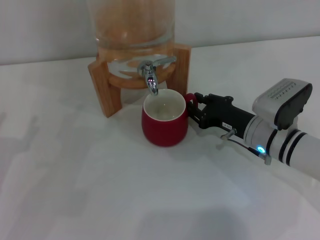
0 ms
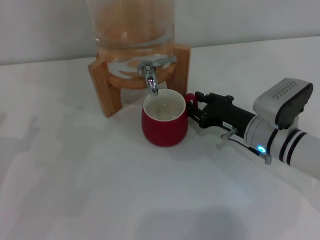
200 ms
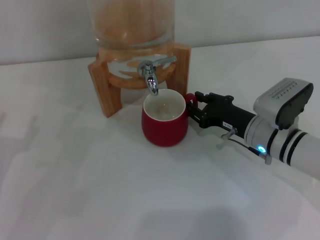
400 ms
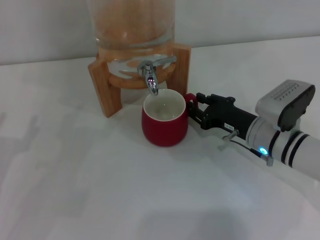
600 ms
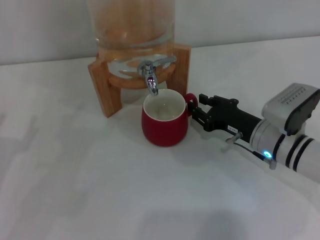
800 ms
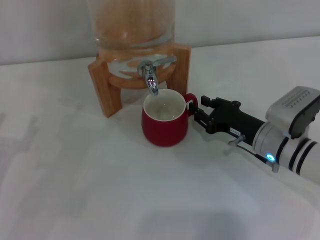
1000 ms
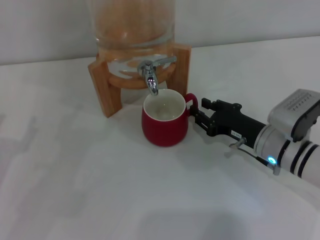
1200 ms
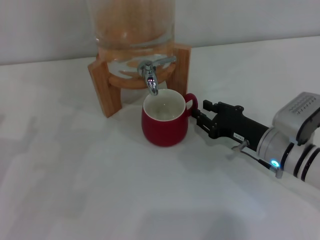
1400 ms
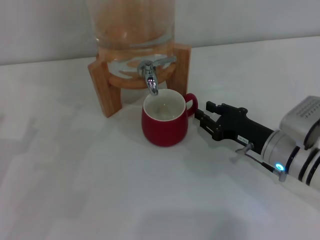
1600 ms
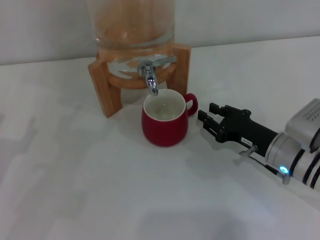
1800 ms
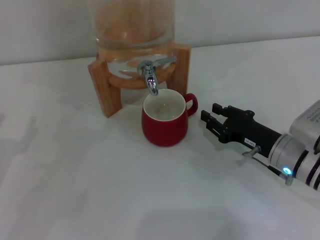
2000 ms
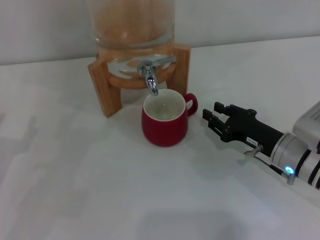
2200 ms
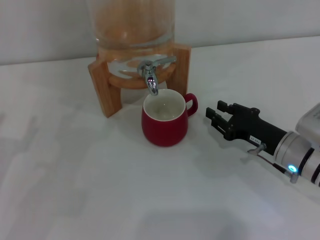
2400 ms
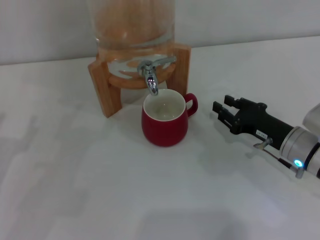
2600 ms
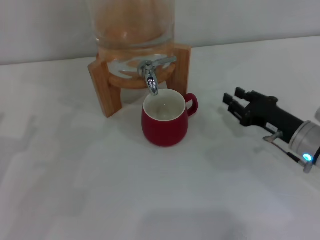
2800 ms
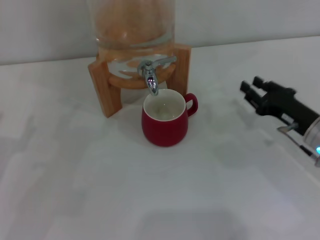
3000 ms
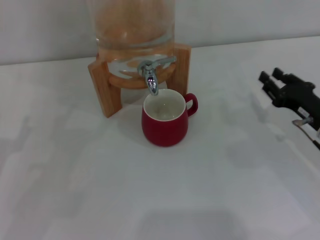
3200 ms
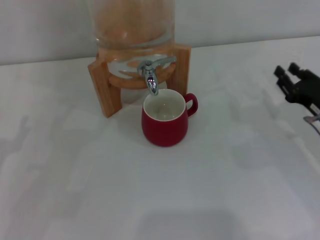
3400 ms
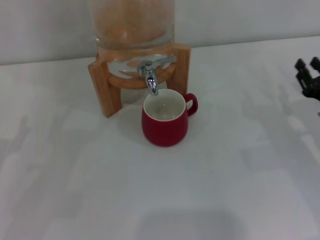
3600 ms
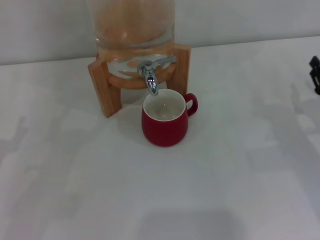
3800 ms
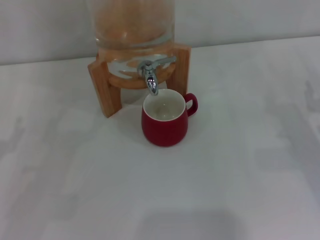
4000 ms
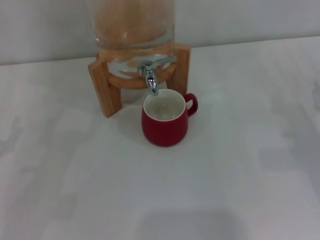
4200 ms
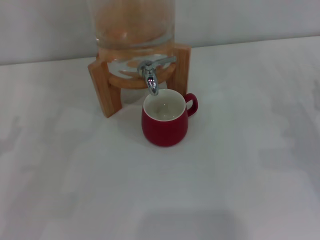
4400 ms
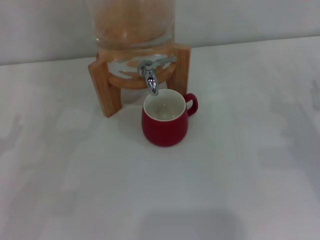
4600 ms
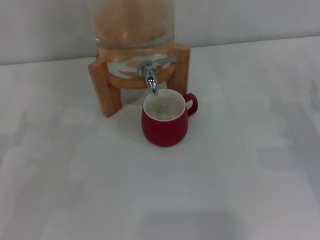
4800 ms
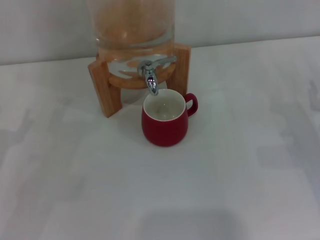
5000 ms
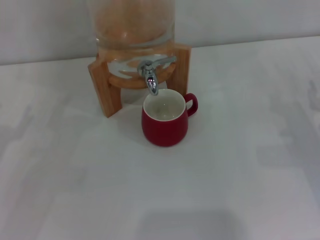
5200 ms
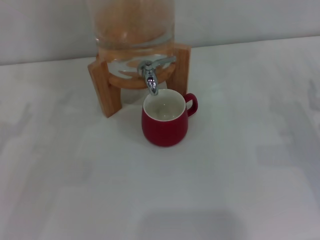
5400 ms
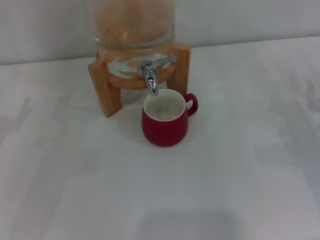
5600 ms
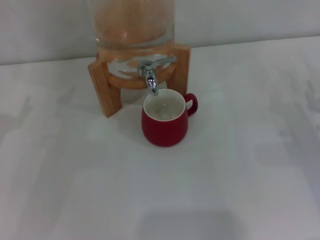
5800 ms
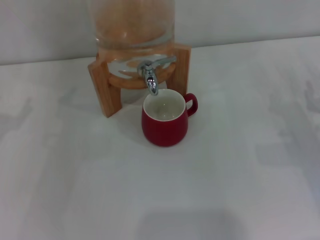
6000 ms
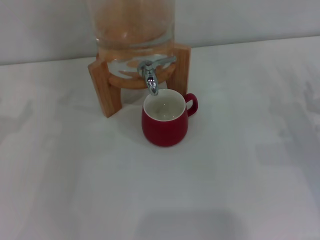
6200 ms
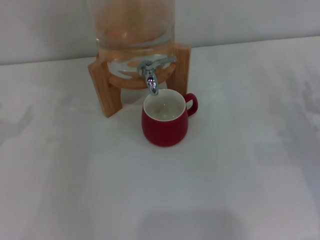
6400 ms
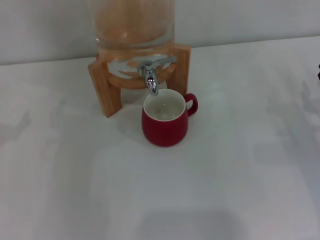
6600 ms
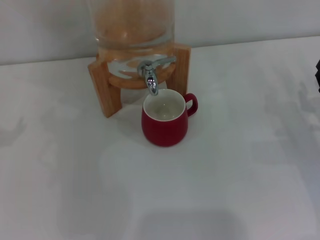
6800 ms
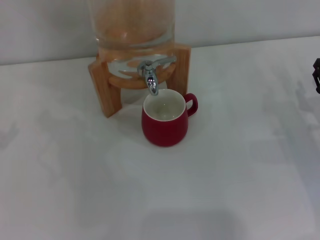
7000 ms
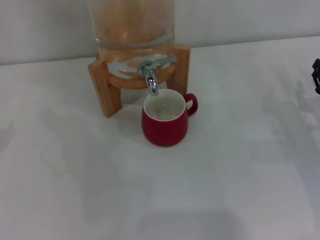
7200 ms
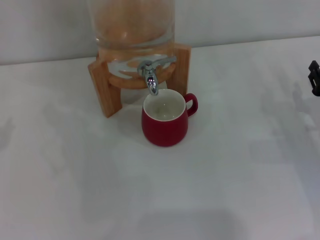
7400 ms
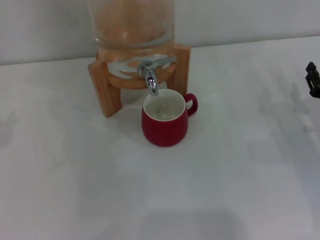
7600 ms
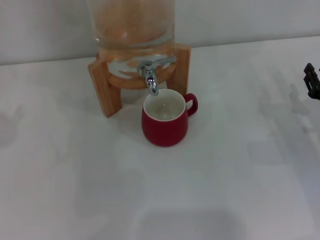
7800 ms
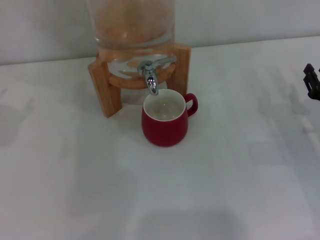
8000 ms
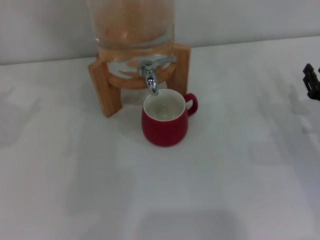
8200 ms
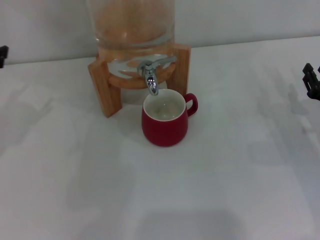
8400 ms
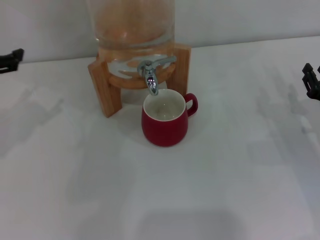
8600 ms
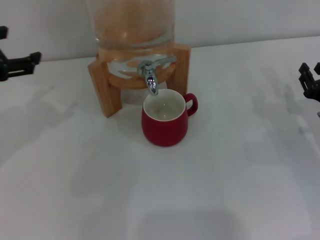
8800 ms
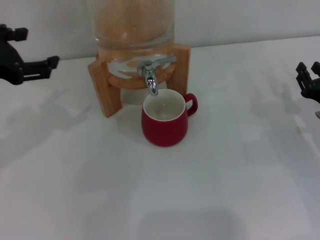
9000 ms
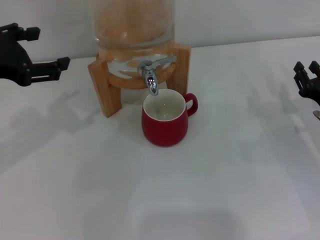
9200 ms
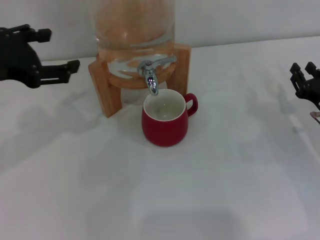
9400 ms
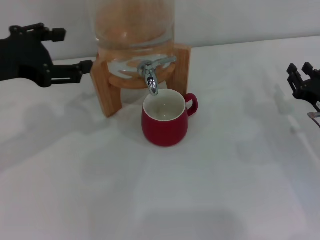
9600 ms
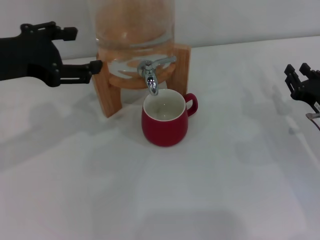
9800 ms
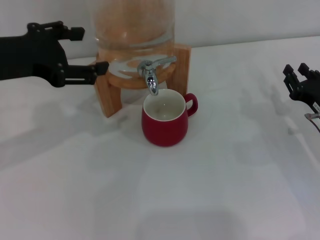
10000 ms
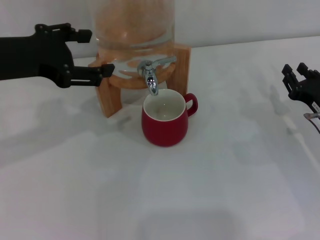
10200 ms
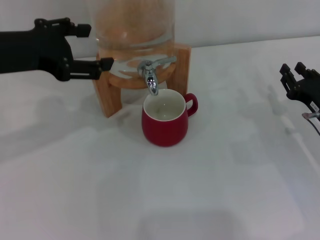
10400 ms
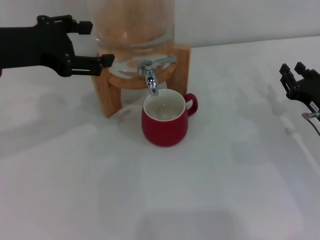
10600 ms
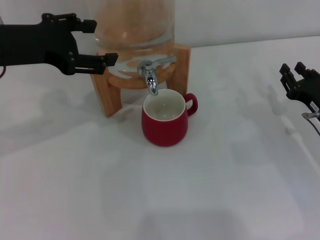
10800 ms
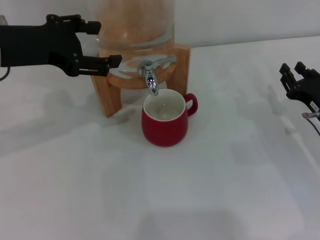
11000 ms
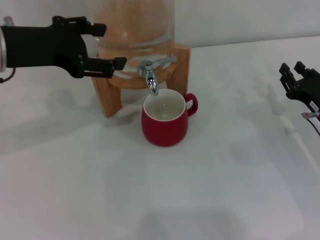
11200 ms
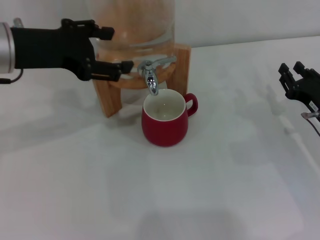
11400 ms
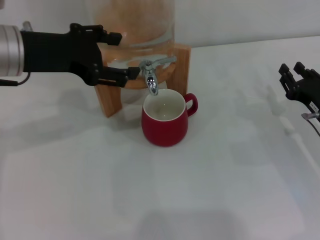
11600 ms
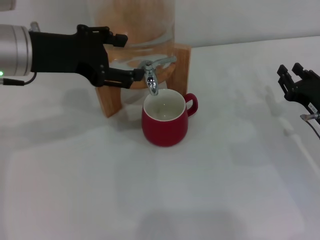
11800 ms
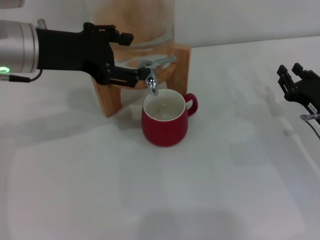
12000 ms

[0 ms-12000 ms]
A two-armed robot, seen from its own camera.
Task of the whole recording: the right gripper pick up the red cup and place it horizontally under the faucet, the left gripper turn on the faucet to fill the cup, and then turn off the faucet.
Step, 0 ms to 2200 ms: Move the cup beneath the water dispenser nozzle with the right gripper.
0 ms to 1600 ms: The grippers move only a little.
1600 ms to 3000 ms: The right gripper moves to the right, about 5 cm.
3000 ms to 4400 ms: The right gripper heads to the right, covering roughly 10 cm.
7600 ms to 9000 ms: The left gripper goes roughly 5 cm to the right.
9000 ms to 10400 ms: The grippers stay close to where they were, moving slightly.
10400 ms to 12000 ms: The left gripper moves roughly 5 cm.

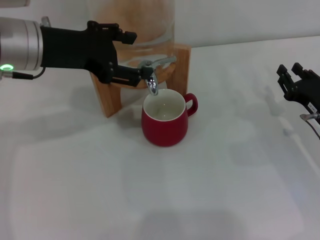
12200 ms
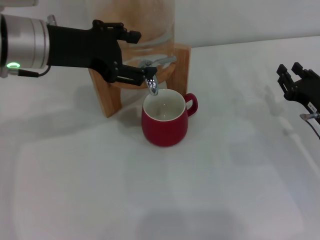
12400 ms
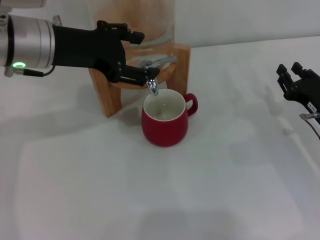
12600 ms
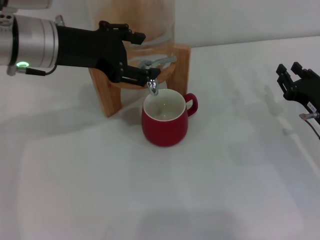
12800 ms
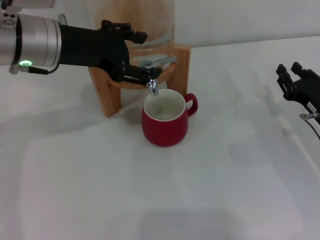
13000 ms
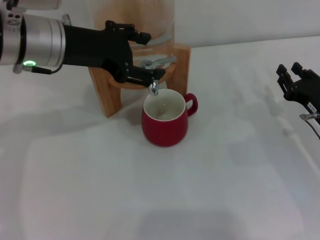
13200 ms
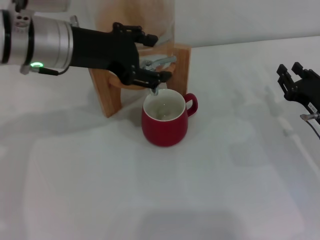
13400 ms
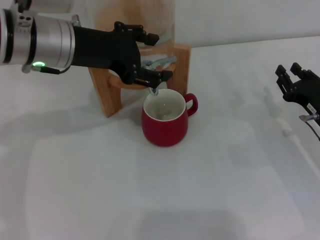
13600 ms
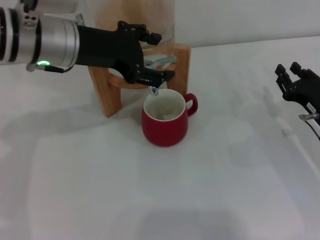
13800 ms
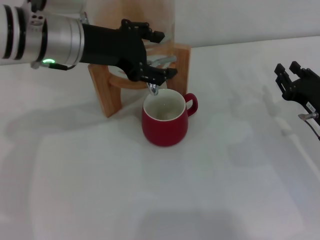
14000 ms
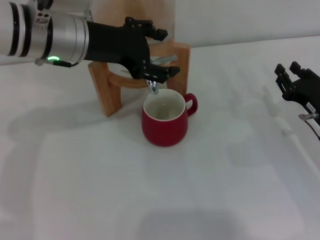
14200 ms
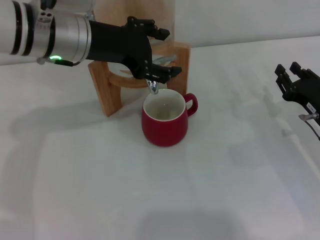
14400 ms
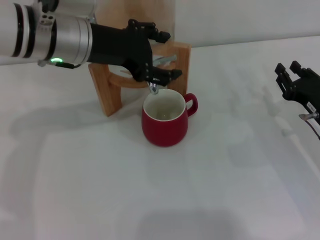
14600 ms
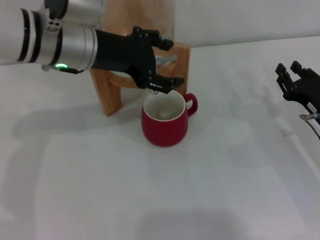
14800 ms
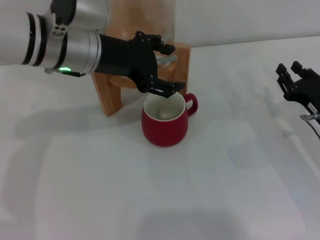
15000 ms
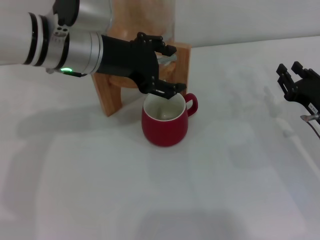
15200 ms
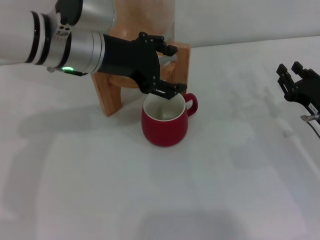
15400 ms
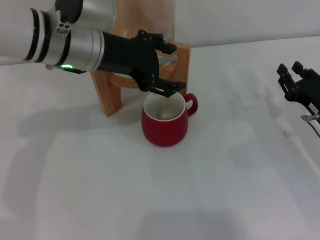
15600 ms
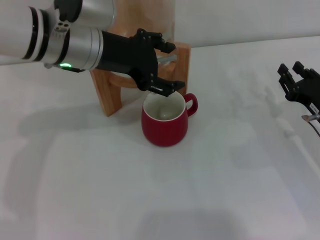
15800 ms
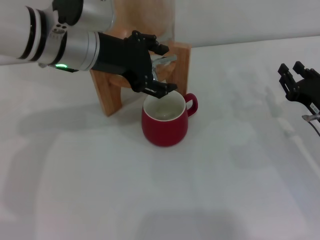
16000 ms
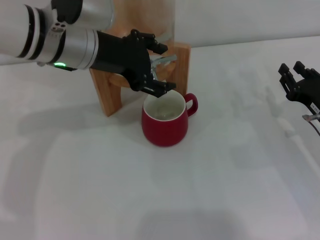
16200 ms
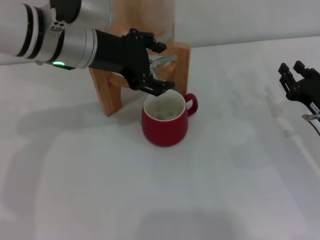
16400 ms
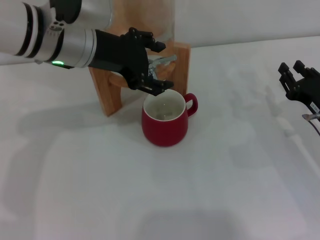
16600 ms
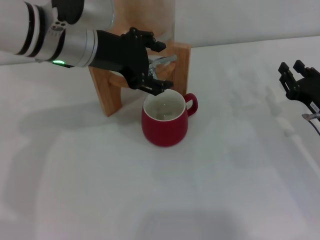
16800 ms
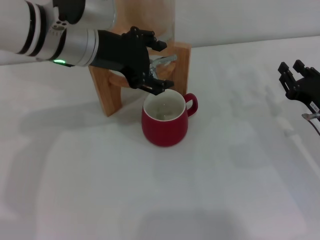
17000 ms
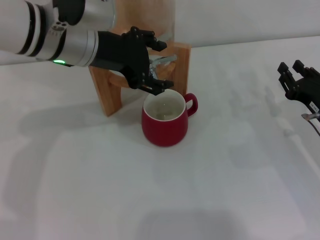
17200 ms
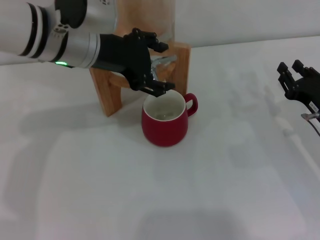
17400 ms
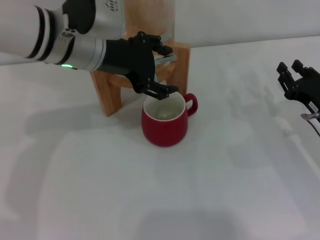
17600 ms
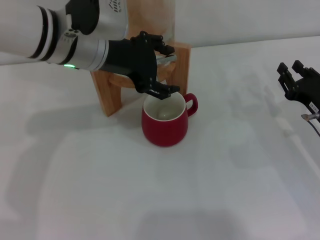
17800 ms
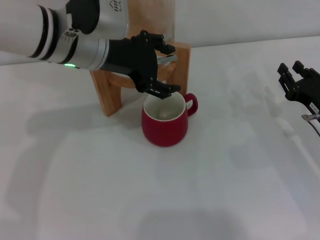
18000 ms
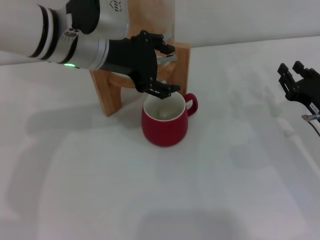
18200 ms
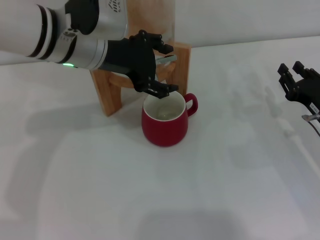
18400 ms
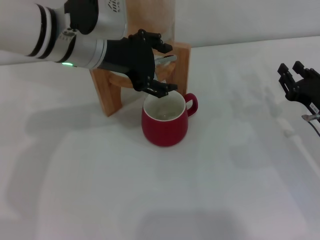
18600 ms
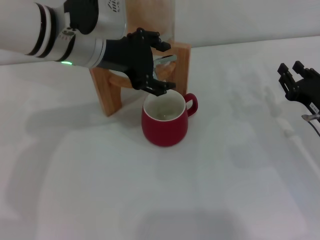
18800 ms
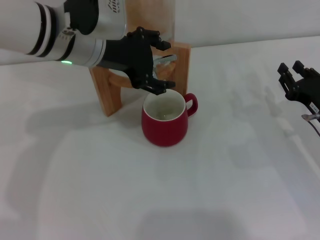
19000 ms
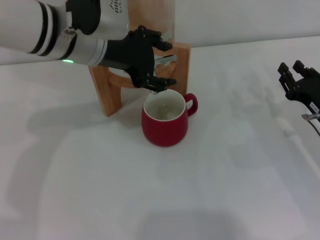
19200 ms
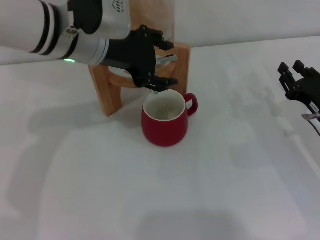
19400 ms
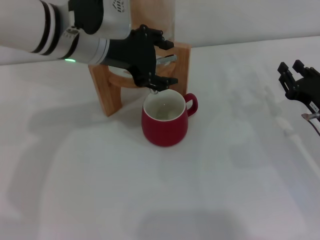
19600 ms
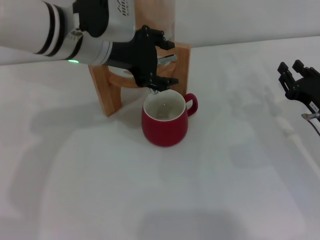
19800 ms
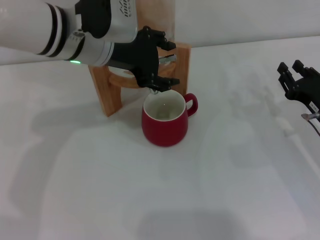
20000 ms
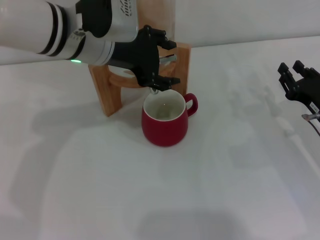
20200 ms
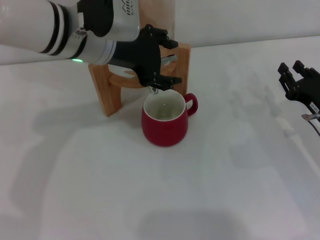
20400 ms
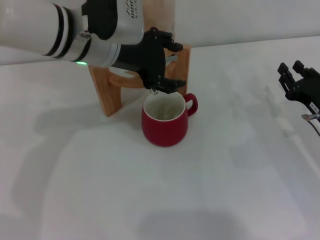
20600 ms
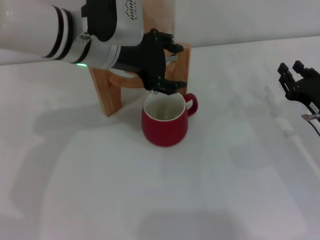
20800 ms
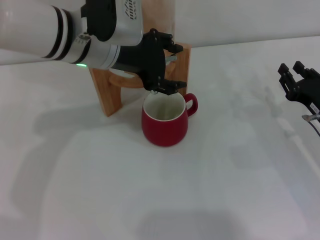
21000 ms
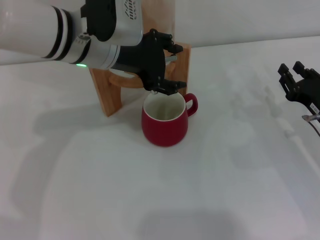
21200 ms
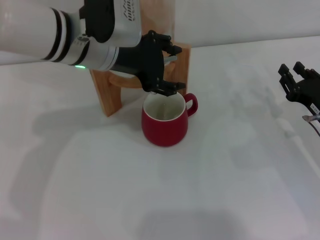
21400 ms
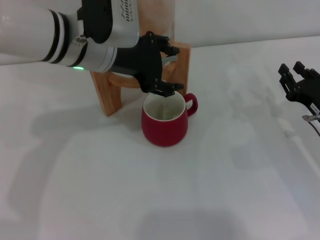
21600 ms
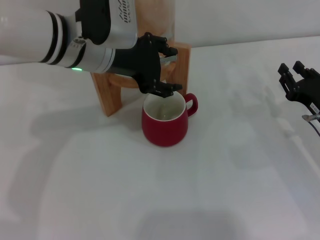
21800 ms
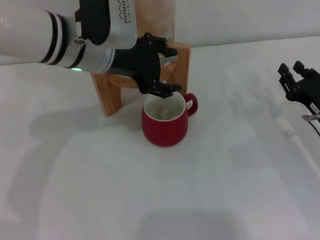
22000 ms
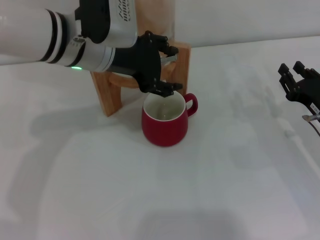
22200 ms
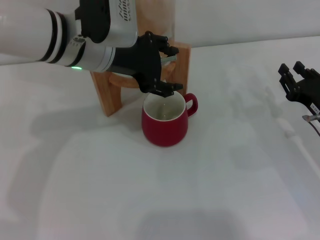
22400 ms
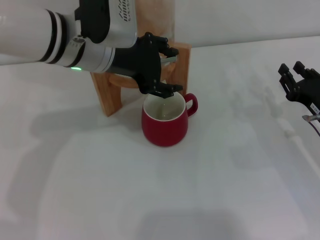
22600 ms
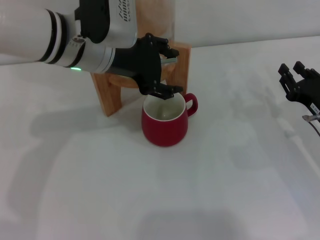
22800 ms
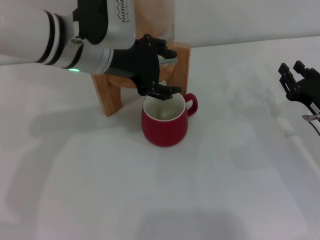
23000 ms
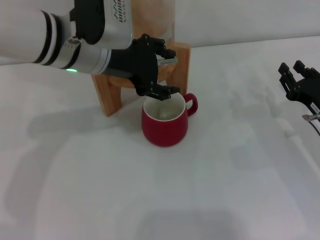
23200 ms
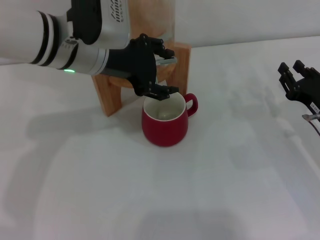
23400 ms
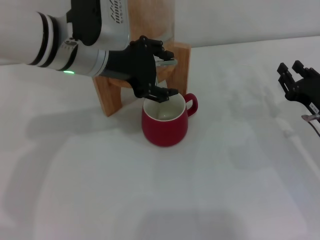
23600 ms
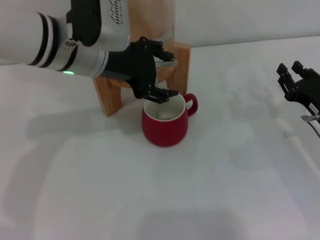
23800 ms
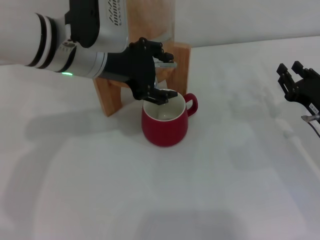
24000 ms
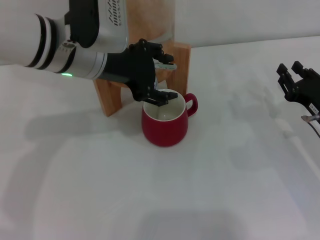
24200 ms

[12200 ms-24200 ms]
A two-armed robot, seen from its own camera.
Task of the whole recording: the right gripper pick up the red cup and place it horizontally under the faucet, the left gripper turn on the faucet to fill the cup, and then turn off the faucet.
12200 ms to 13800 ms: The grippers stay close to where they were, moving slightly.
13800 ms to 18200 ms: The grippers move only a little.
18200 ms to 19800 ms: The two grippers keep their place.
19800 ms to 22600 ms: Both grippers stay put.
22600 ms to 24200 ms: Both grippers stay about where they are.
